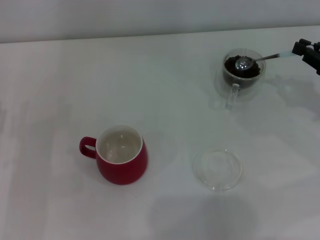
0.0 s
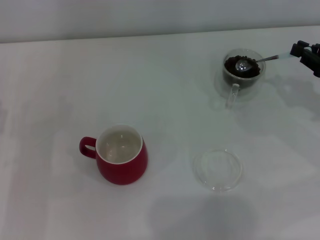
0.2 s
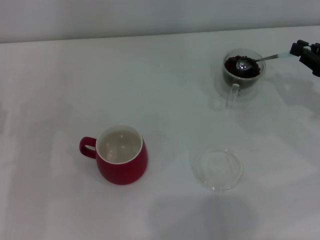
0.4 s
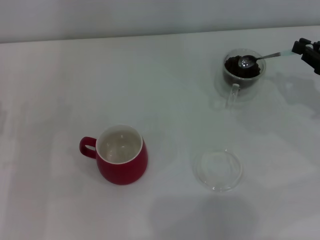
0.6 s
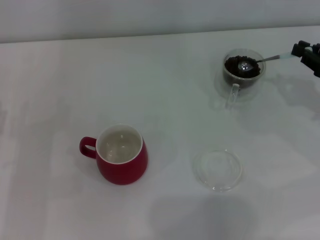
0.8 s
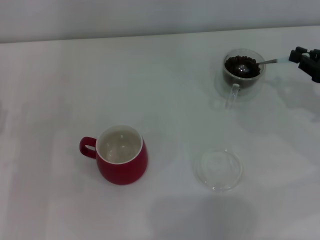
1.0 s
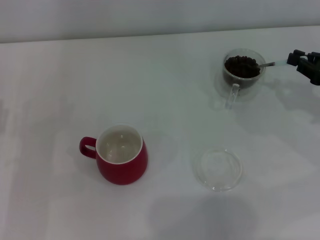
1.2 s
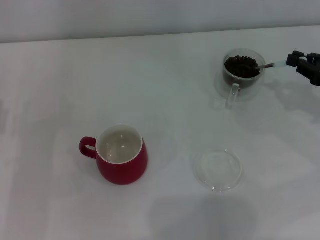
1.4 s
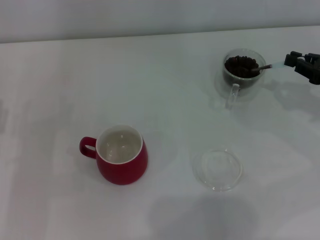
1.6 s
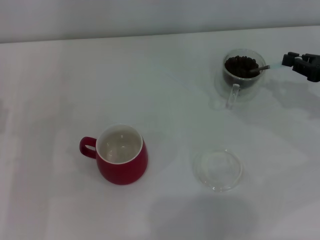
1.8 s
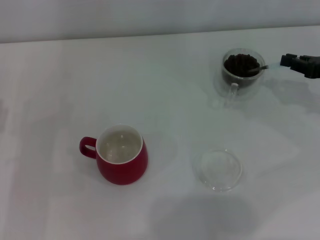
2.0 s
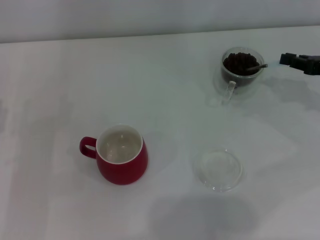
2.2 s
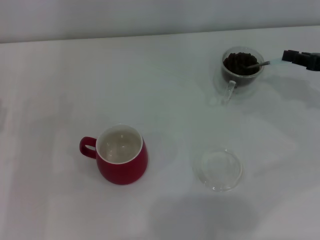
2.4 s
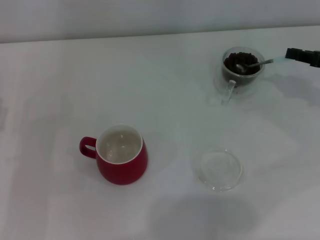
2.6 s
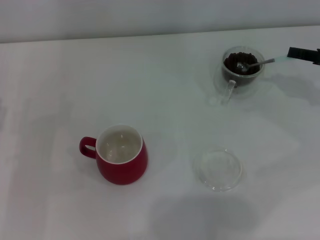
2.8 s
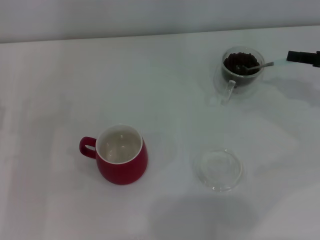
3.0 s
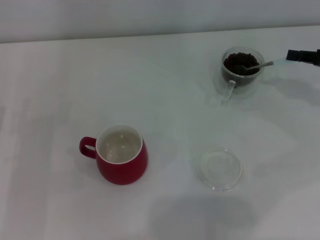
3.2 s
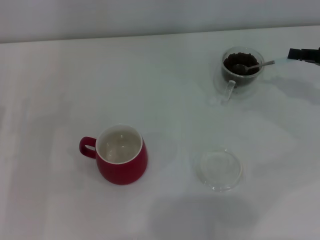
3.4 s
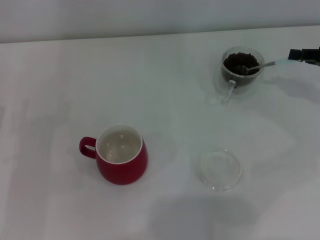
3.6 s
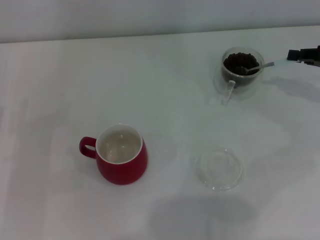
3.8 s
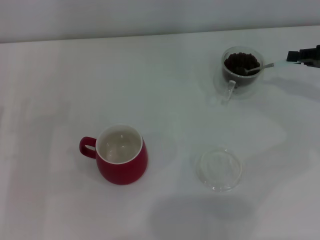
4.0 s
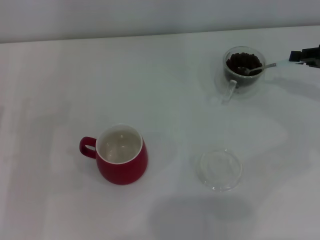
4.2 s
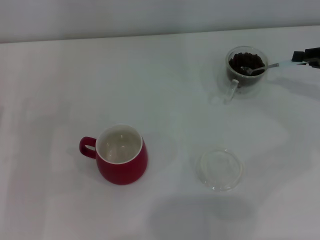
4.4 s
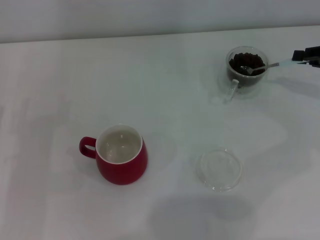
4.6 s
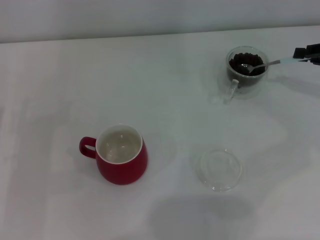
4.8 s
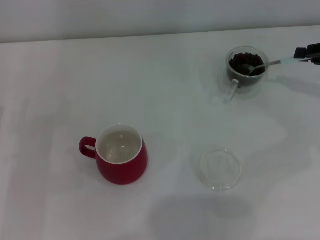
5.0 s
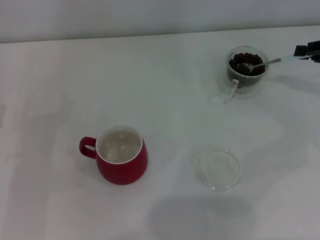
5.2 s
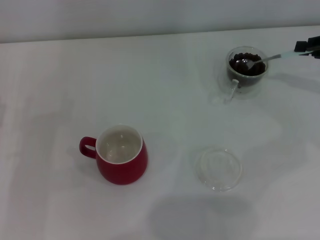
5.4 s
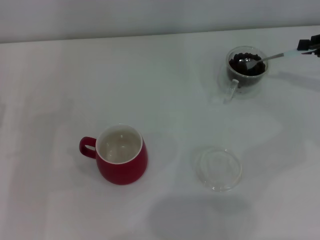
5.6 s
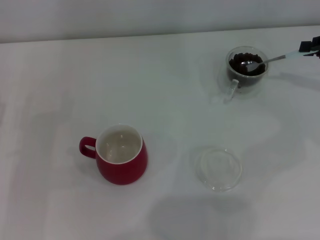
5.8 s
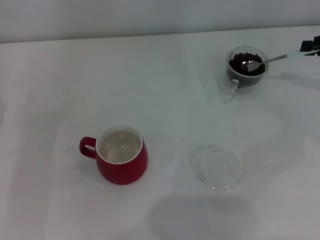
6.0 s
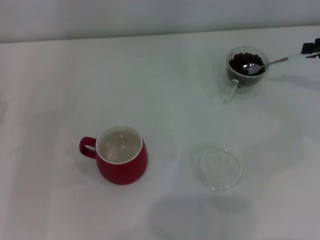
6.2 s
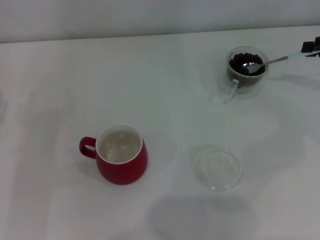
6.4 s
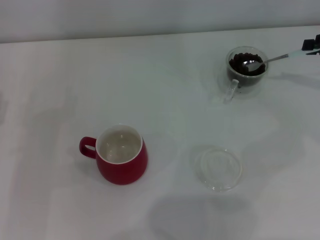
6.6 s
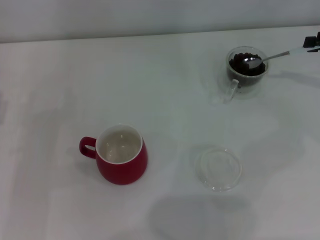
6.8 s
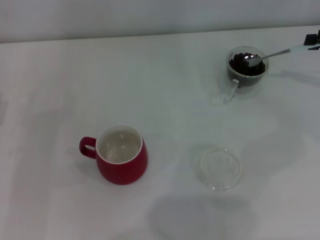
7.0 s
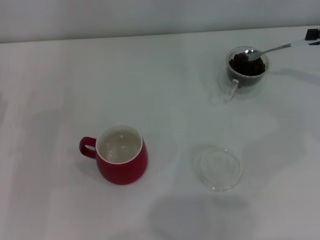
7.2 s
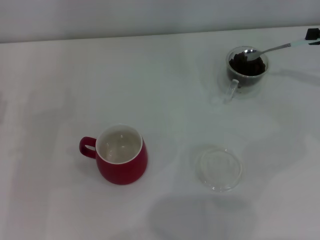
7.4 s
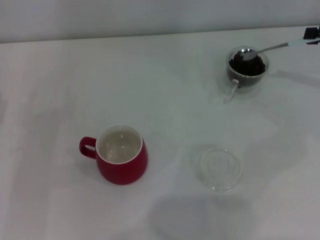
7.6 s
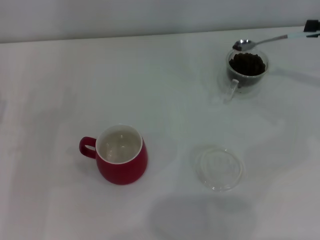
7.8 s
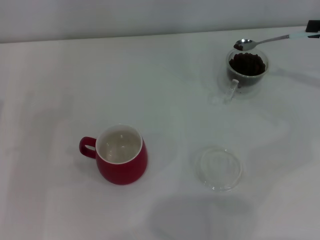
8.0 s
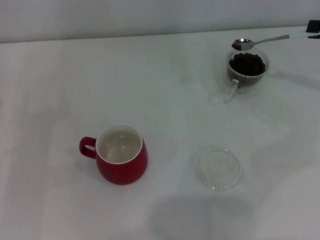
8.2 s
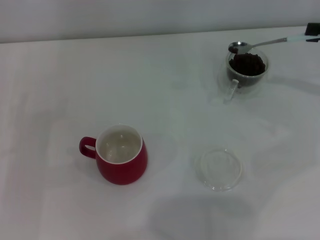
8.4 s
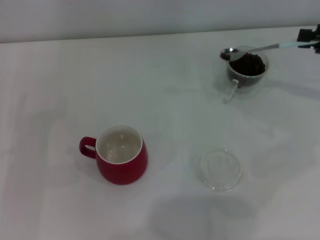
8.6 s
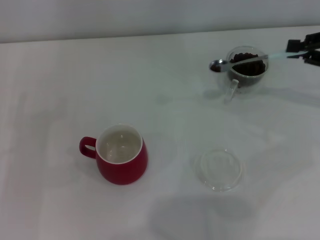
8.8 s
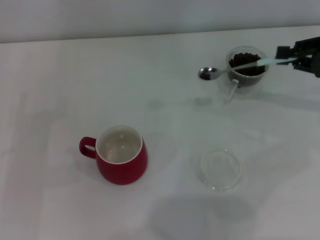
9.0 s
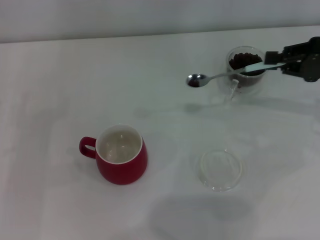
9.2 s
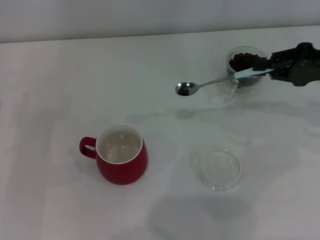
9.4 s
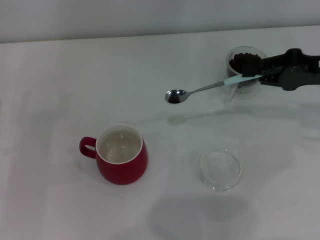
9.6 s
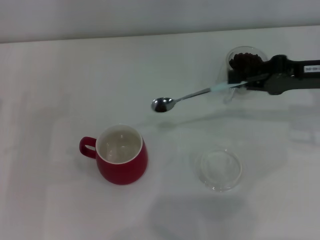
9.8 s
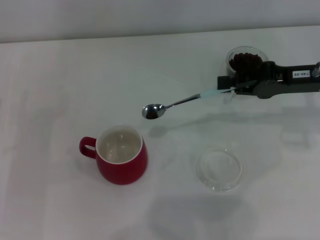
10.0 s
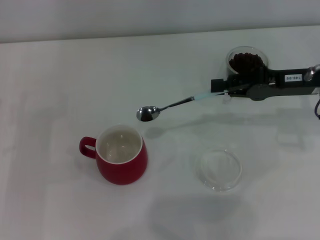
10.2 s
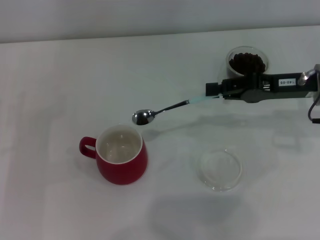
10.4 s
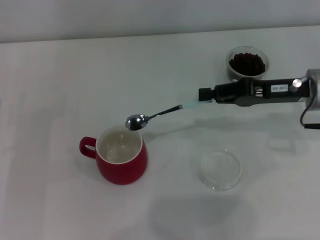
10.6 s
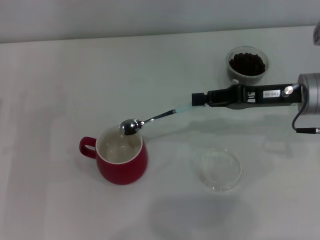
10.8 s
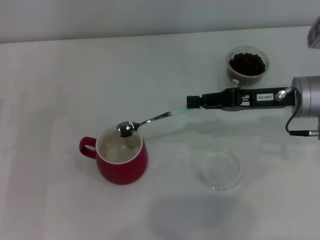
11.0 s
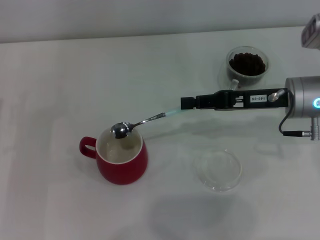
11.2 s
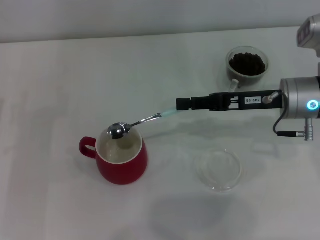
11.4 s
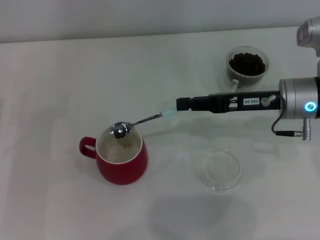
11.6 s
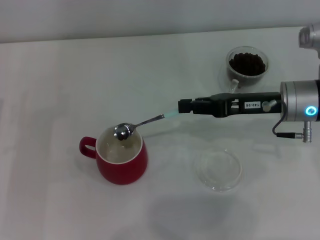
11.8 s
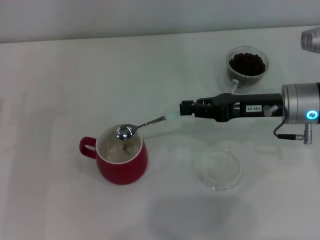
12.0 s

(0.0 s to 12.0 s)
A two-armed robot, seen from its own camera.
Task of the whole recording: Use a blue spoon to take out the coffee beans from the glass and pour them into the red cup.
0.0 s - 1.6 s: The grippers move only a little.
3.0 s - 4.4 s: The grippers move only a little.
4.4 s - 7.6 s: There are only small adjustments of the grippers.
7.6 s - 9.0 s: The right gripper shifts by some 5 cm.
9.0 s - 10.4 s: The right gripper goes approximately 10 cm to the left.

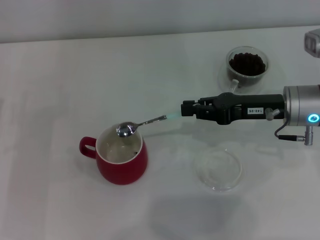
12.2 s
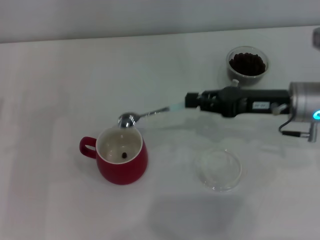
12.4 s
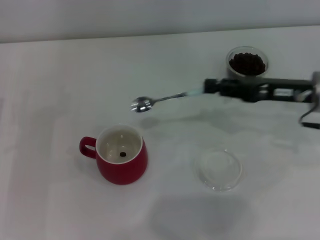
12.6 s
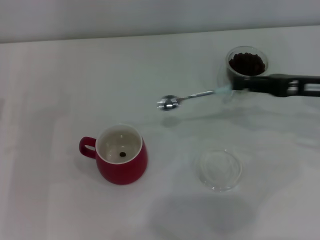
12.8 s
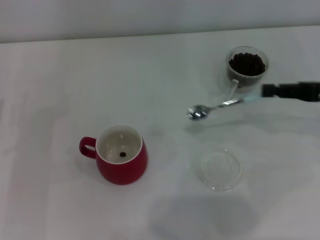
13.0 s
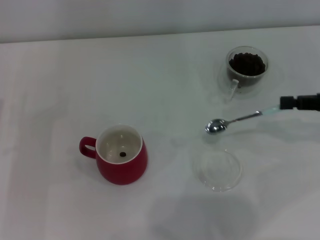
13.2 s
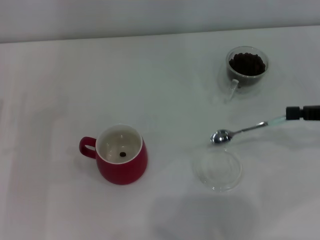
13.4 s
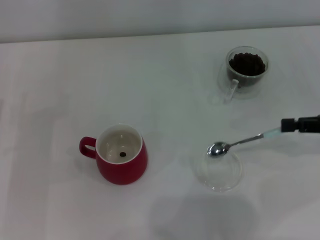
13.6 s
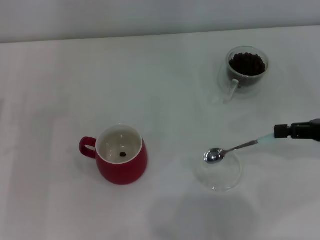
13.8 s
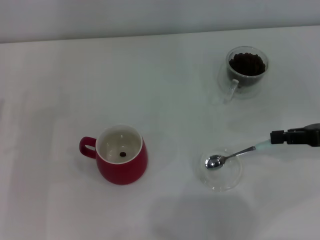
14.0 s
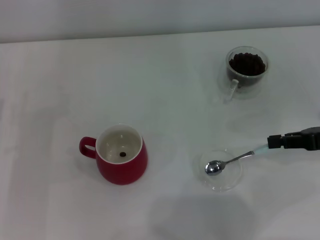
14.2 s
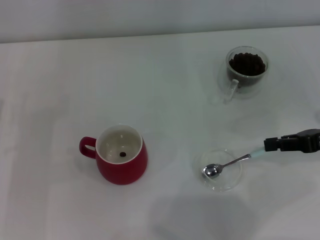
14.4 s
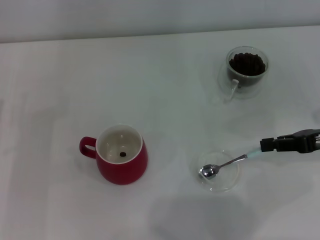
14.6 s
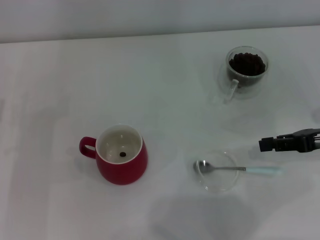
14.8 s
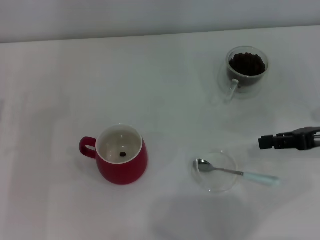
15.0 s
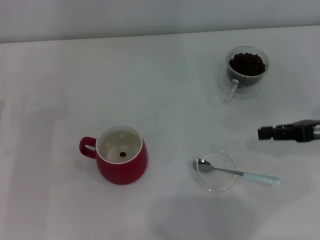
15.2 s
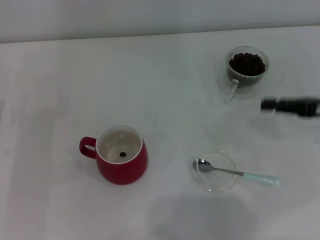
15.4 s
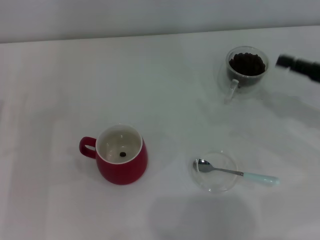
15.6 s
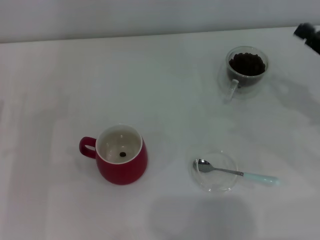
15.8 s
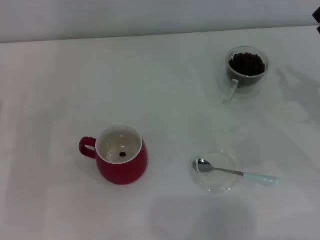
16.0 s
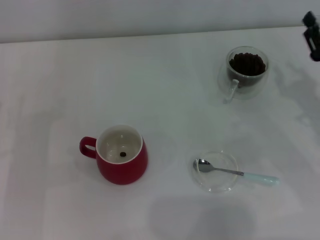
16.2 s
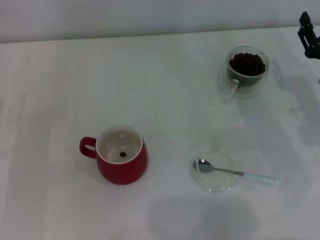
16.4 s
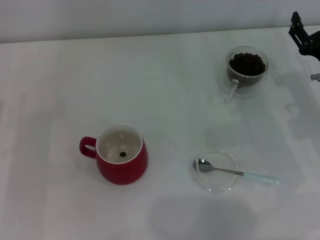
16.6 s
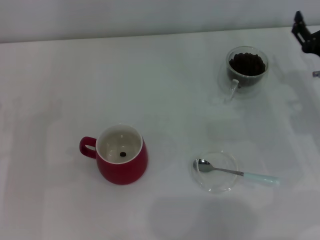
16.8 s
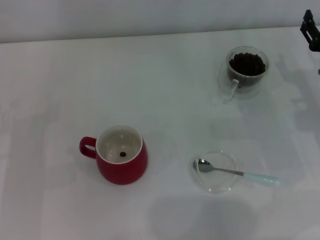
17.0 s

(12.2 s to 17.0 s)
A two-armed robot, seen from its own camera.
Task of the whole recording: Use a blue spoon to take out the coffee beans from the glass and pour them into the red cup.
Step, 12.6 s - 14.8 s: Place the spoon back in its original place with the right gripper.
12.2 s - 13.8 s: The right gripper heads to the right and backward, covering some 15 cm.
13.8 s - 15.4 s: The grippers make only small movements.
15.4 s - 17.0 s: The right gripper shifts by about 5 cm, and opens up.

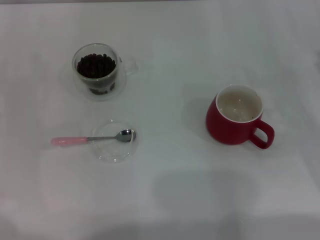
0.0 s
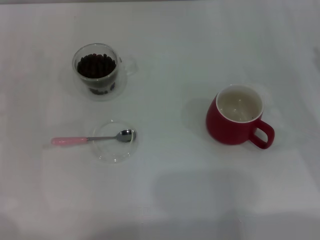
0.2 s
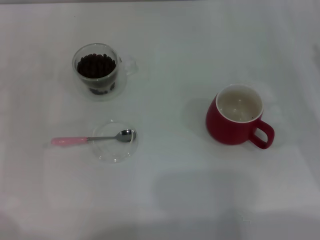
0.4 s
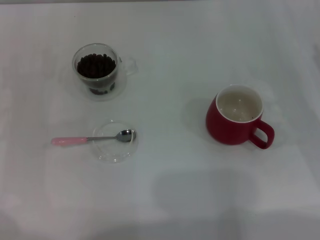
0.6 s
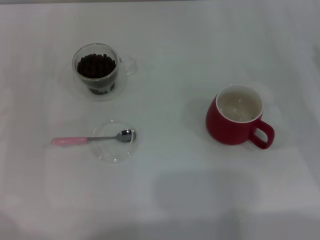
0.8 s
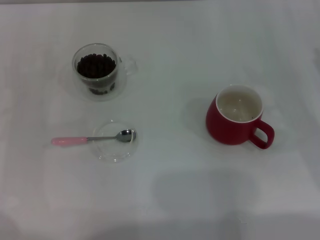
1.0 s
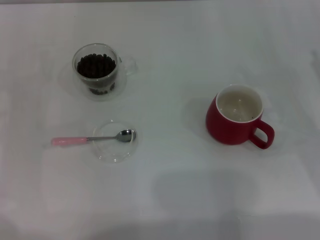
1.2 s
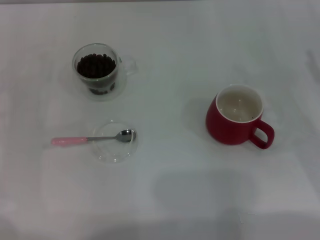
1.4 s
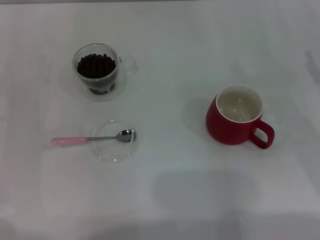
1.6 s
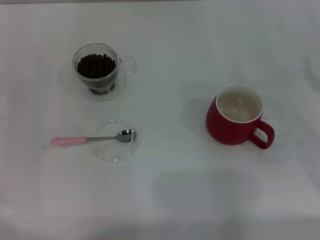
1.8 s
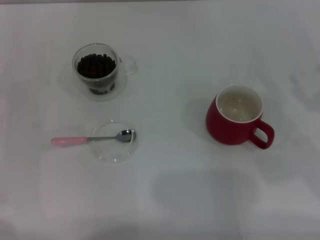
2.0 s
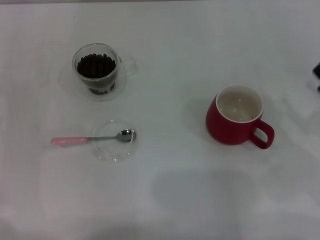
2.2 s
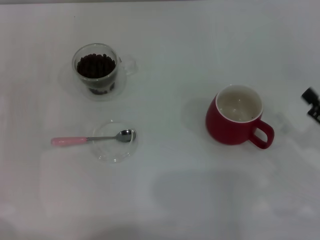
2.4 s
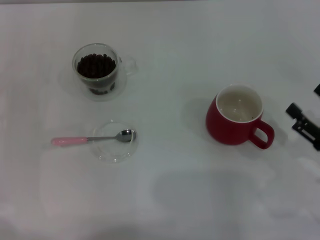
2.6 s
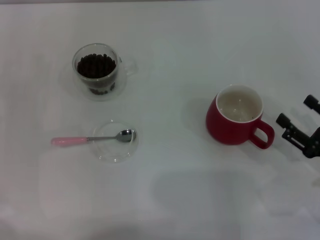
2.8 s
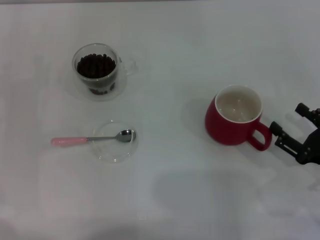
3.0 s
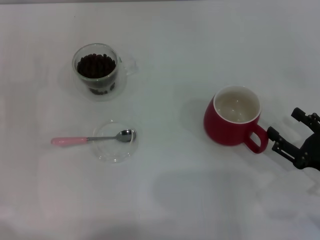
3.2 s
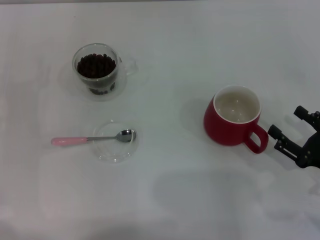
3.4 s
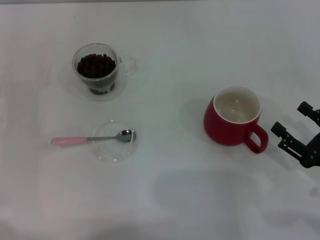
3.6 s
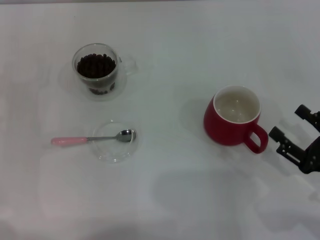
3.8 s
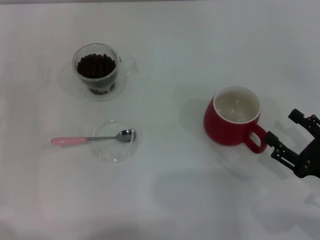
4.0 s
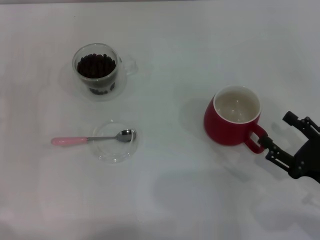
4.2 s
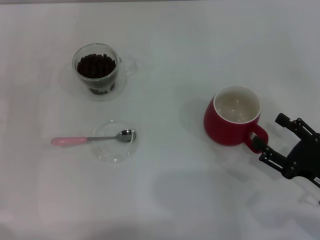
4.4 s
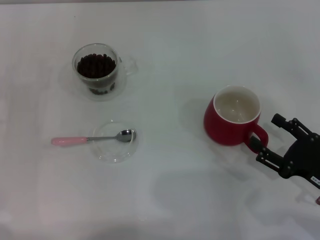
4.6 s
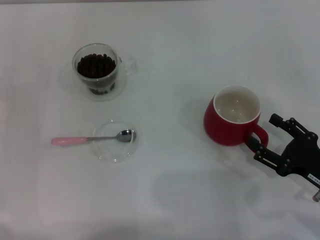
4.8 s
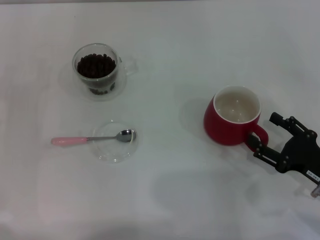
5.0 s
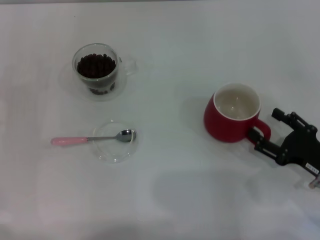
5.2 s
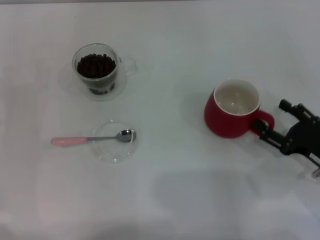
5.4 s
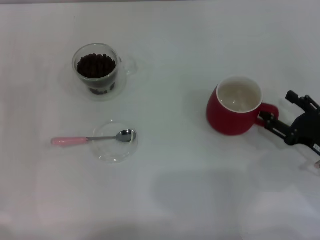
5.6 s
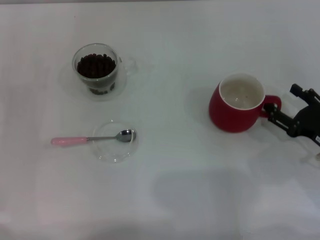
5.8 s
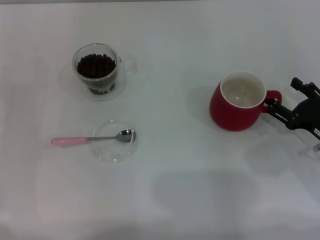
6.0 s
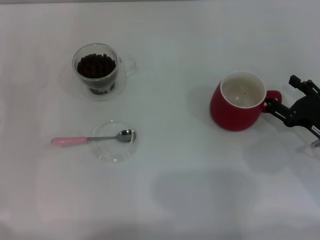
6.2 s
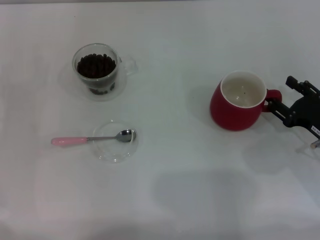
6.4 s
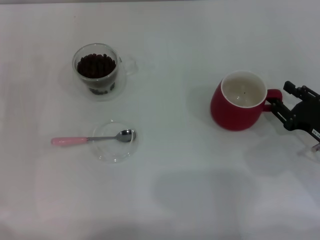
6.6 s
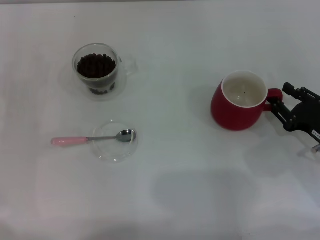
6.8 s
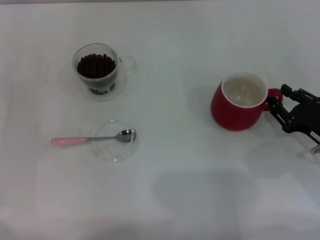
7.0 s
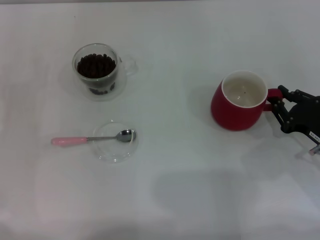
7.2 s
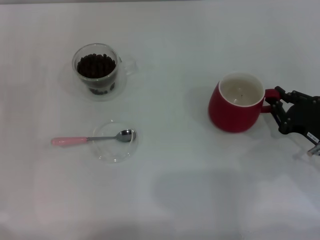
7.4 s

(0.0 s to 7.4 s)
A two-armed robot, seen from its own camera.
Task of the whole recording: Use a pink spoon to take out the coffee beans from the glass and pour them into the red cup.
1.4 s - 3.0 s: The right gripper heads backward and downward, covering approximately 10 cm.
3.0 s - 4.4 s: There are only small adjustments of the grippers.
4.4 s - 6.0 s: The right gripper travels forward by approximately 5 cm.
6.0 s - 7.4 s: The right gripper closes.
